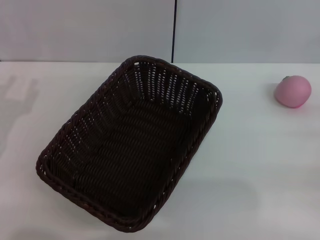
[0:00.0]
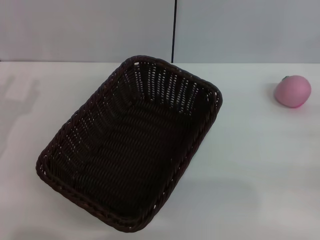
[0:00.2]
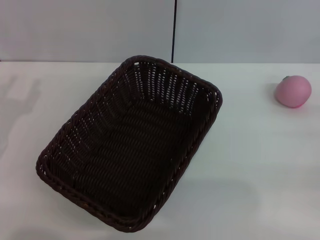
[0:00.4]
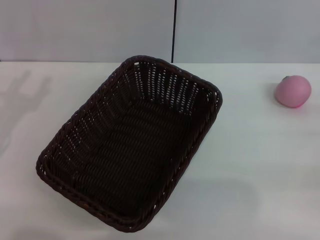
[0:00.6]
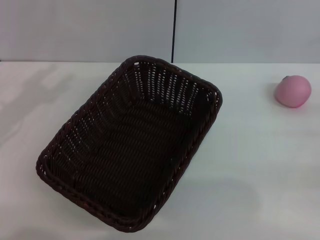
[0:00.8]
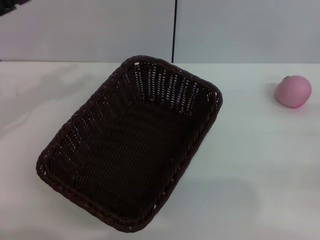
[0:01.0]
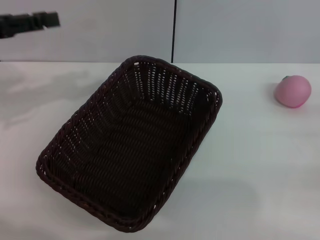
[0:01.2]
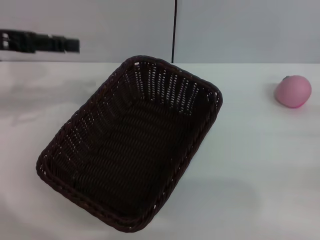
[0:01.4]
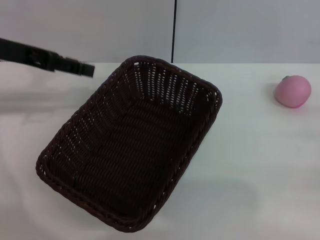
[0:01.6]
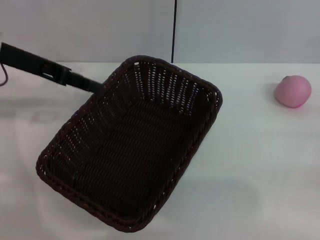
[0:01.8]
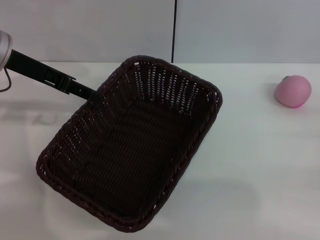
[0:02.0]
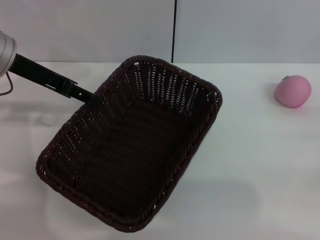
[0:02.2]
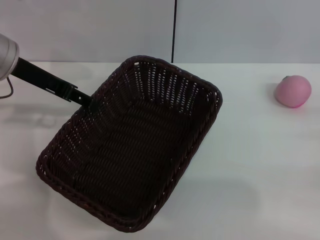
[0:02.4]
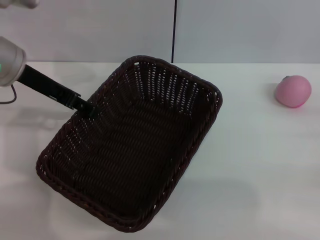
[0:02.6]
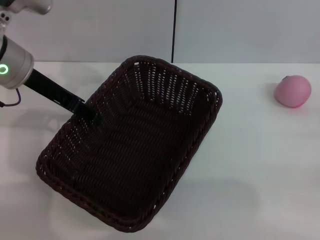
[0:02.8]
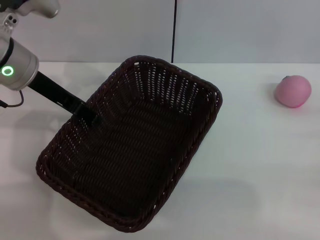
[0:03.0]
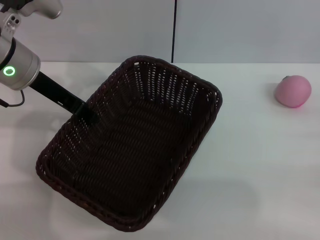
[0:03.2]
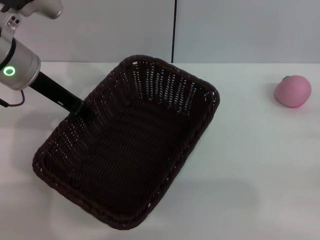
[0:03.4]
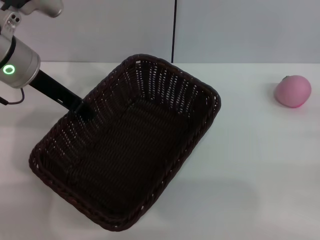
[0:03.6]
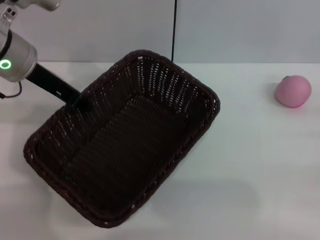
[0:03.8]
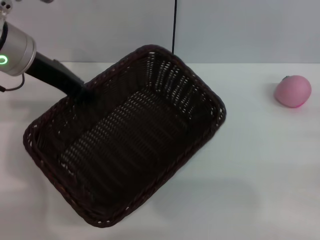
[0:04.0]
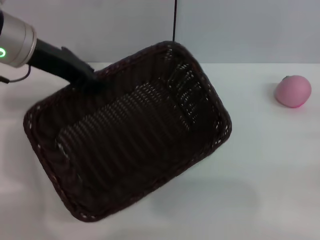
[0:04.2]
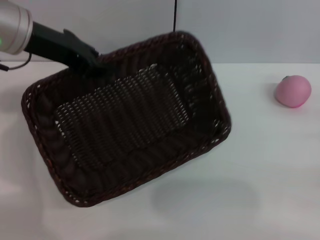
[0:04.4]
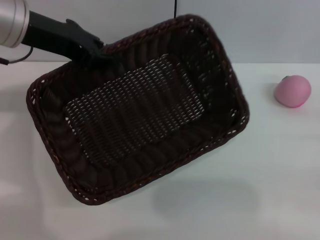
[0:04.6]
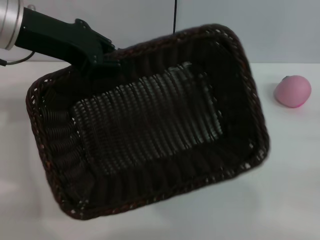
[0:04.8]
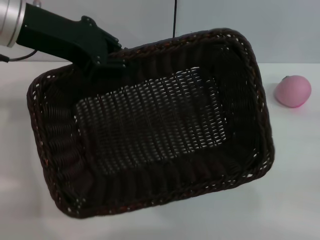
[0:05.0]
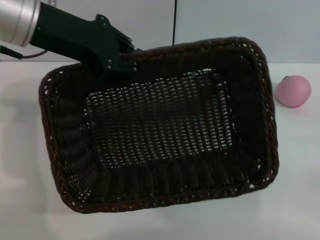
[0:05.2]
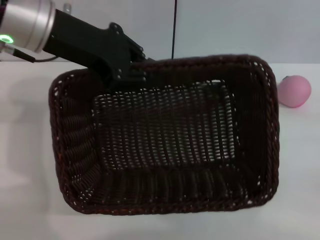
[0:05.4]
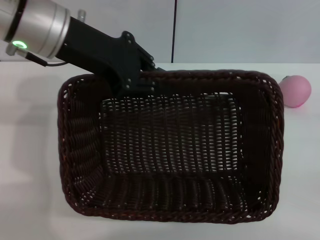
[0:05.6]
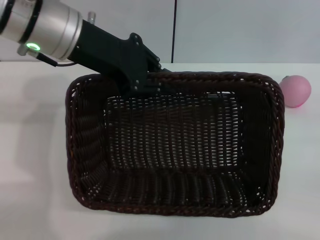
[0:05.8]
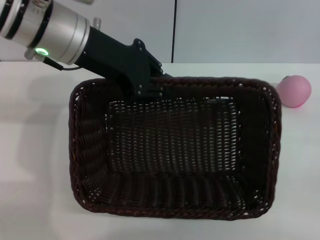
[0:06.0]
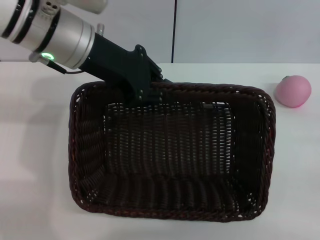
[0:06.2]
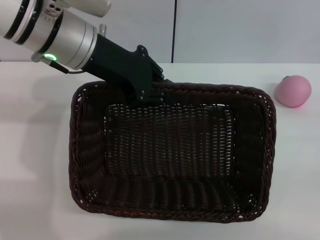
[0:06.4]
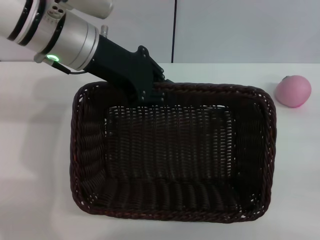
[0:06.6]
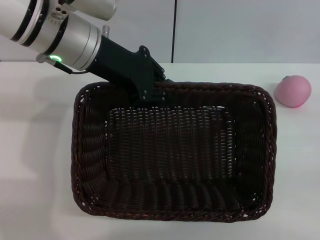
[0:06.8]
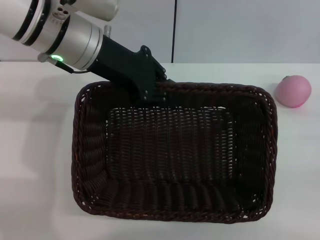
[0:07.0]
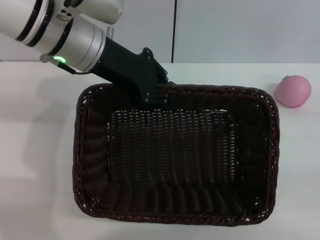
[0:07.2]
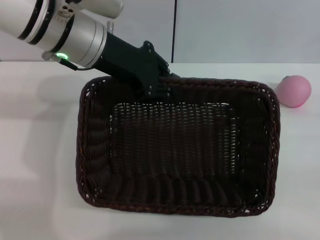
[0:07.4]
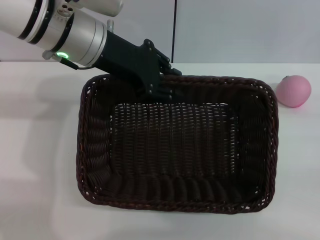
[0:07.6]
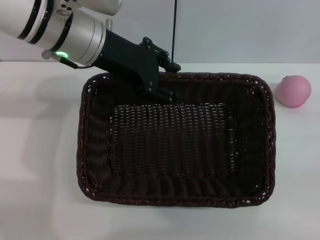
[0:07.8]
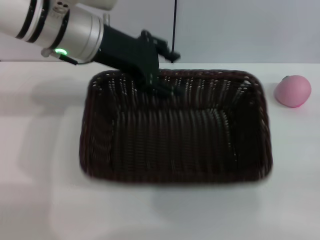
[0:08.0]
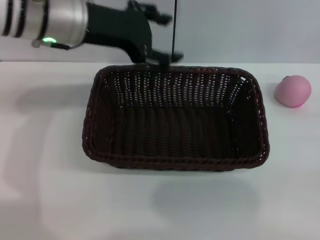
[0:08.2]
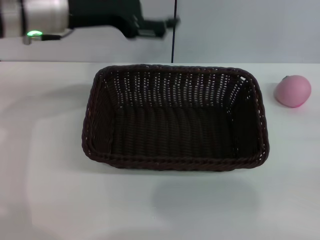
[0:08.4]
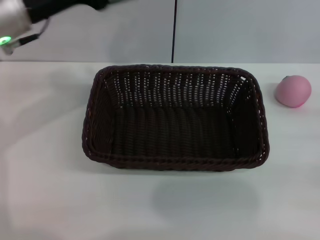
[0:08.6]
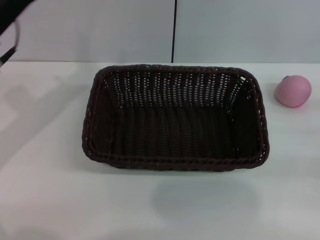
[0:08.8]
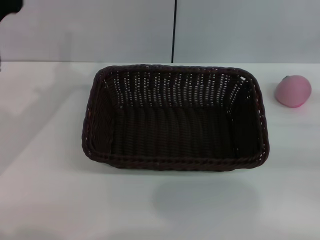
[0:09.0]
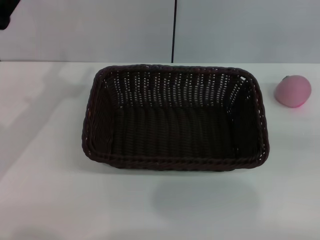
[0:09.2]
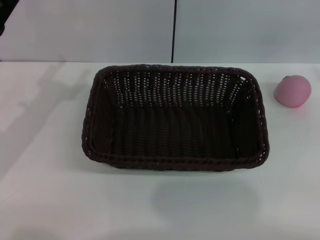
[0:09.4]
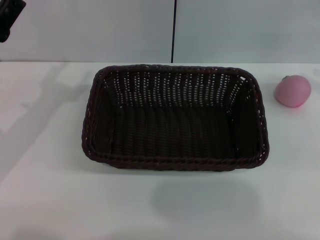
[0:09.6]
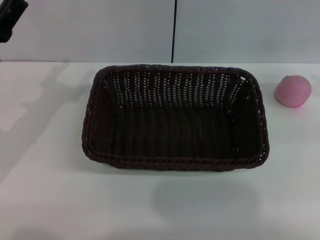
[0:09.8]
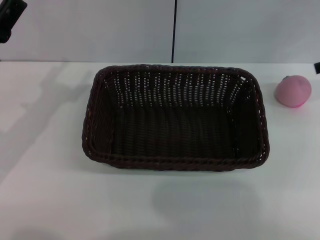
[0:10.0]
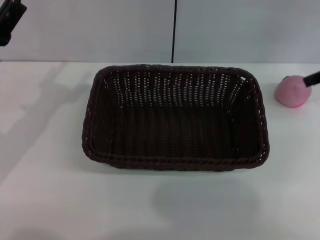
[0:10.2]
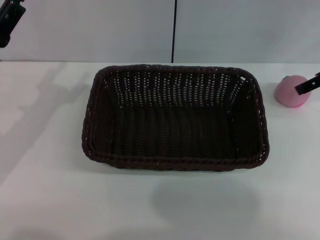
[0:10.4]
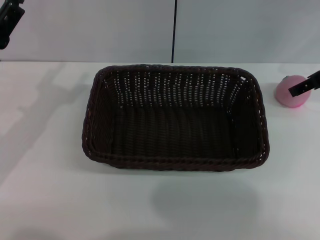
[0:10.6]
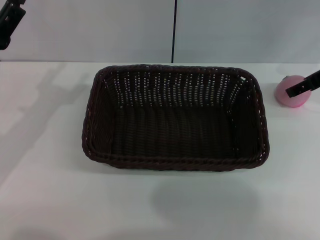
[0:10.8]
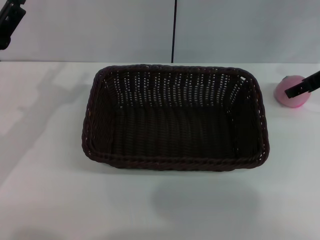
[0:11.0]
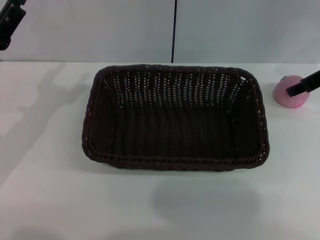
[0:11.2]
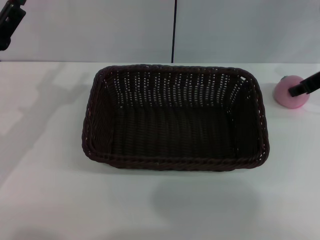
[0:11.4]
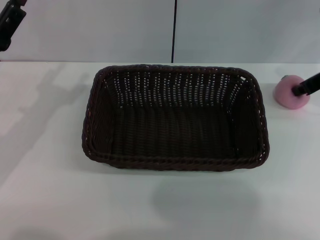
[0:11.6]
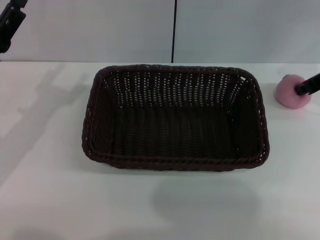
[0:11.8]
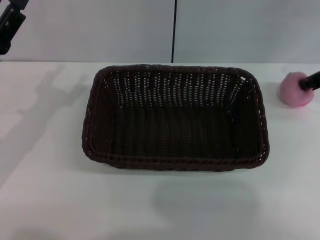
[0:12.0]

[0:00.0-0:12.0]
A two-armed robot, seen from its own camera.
Step, 0:00.0 to 0:04.0: Pick up the dark basket with the left gripper.
Step, 0:04.2 to 0:08.0: Place the dark basket in the center of view with the right gripper.
0:00.0 to 0:01.6: The left gripper moves upward and forward, about 20 cm, and opens up.
0:01.6 to 0:03.0: The left gripper travels to the right by about 5 cm.
0:03.0 to 0:04.4: The left gripper is displaced upward by some 5 cm, and closes up.
0:04.4 to 0:06.0: The left gripper heads to the right, covering roughly 5 cm.
0:06.0 to 0:07.6: There are only small adjustments of the grippers.
0:07.6 to 0:09.0: The left gripper moves to the left, downward and backward, approximately 15 cm, and opens. Meanwhile the right gripper is displaced upward by roughly 5 cm.
0:09.0 to 0:10.4: The right gripper travels forward, to the left and upward by about 20 cm.

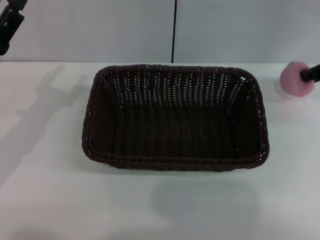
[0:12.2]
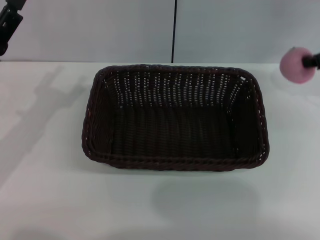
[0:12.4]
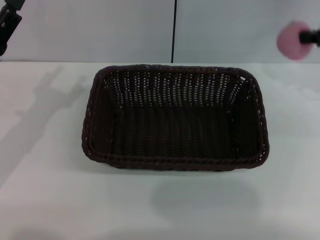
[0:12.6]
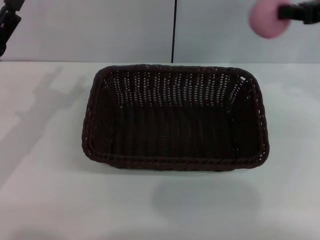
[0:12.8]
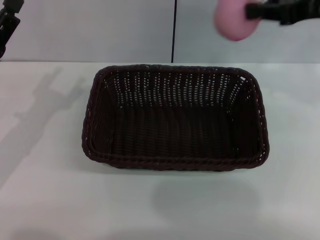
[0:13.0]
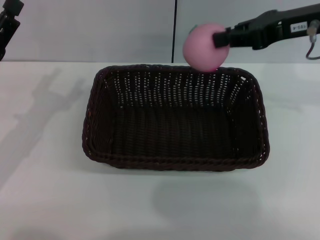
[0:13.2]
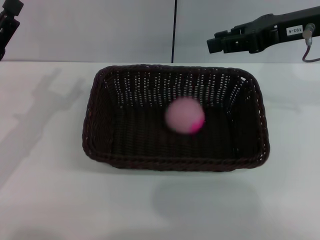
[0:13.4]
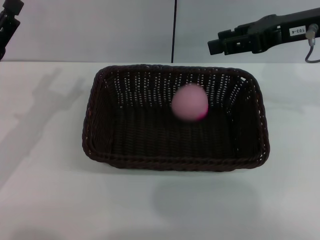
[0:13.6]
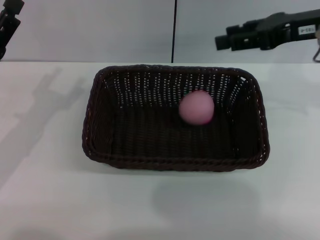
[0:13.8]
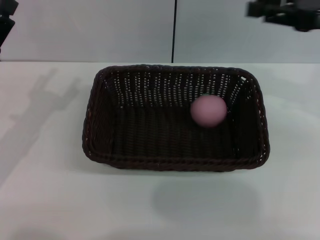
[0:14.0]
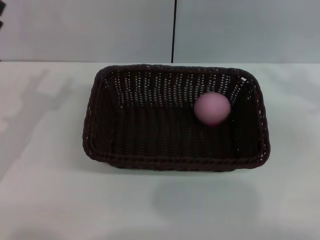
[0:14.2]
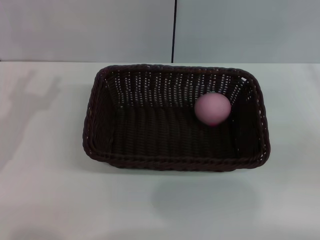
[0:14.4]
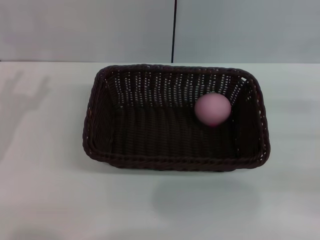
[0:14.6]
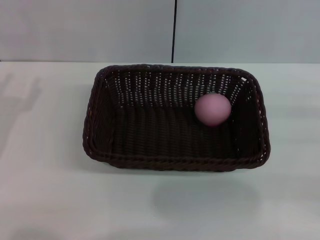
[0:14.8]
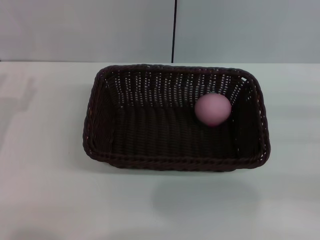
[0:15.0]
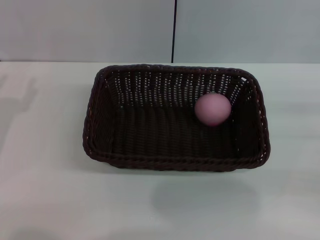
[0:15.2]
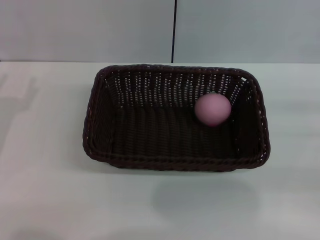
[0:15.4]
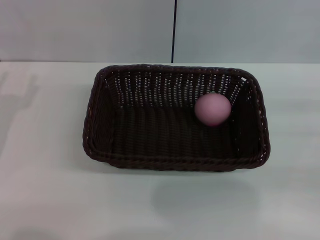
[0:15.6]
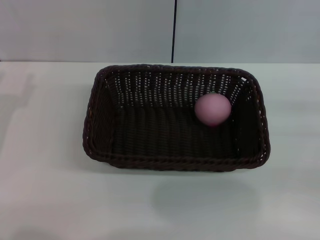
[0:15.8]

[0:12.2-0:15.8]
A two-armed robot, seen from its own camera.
0:12.2 to 0:14.0: The right gripper heads backward, covering about 5 cm, reaches about 10 cm to the left, then returns, and opens its fingers.
0:14.0 to 0:15.8: The right gripper travels downward, to the right and backward by roughly 20 cm.
